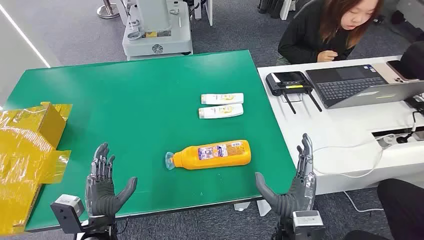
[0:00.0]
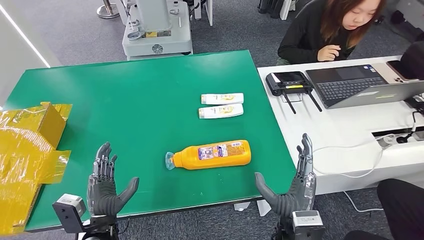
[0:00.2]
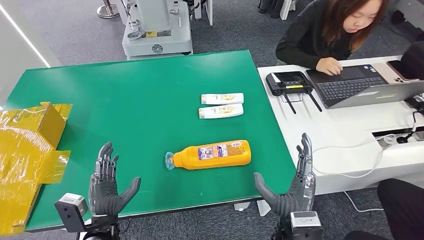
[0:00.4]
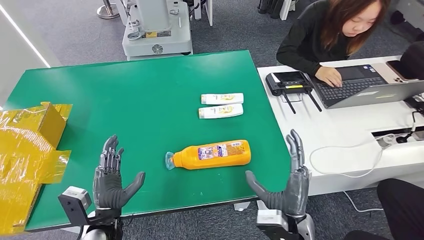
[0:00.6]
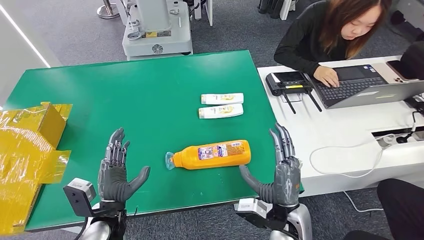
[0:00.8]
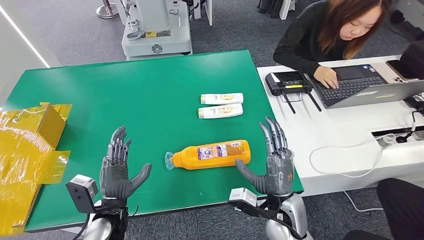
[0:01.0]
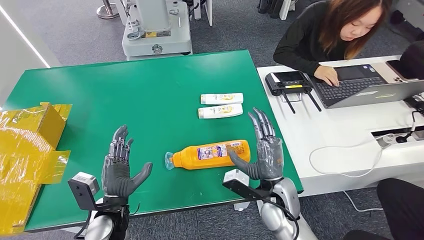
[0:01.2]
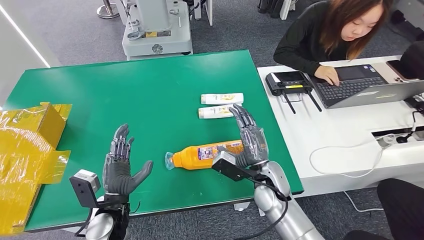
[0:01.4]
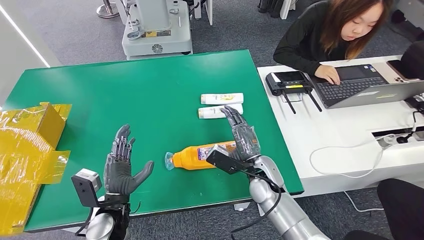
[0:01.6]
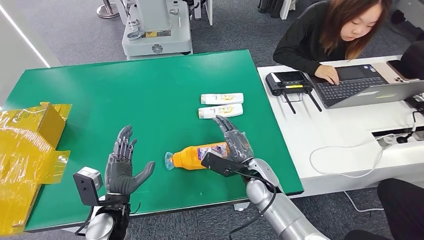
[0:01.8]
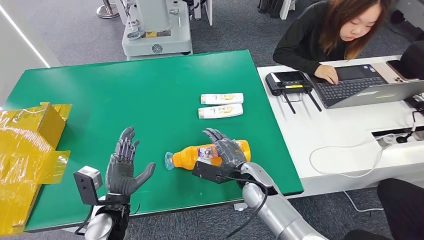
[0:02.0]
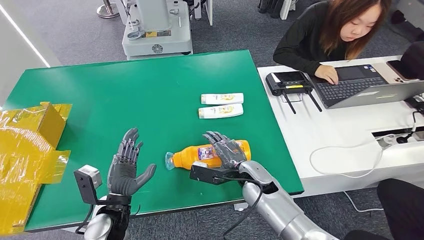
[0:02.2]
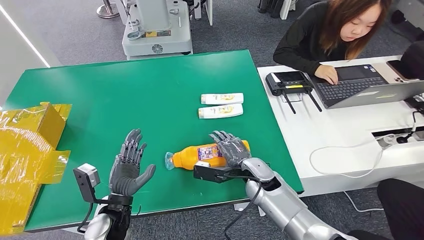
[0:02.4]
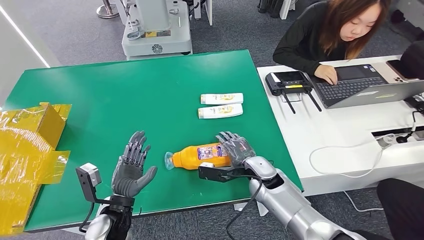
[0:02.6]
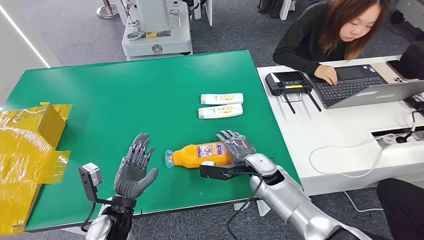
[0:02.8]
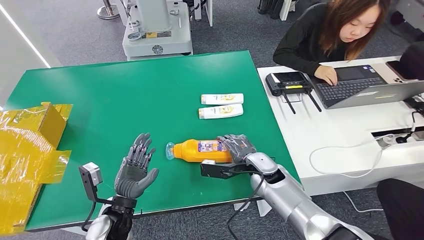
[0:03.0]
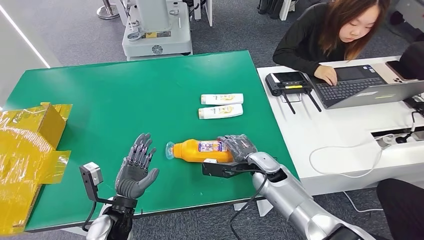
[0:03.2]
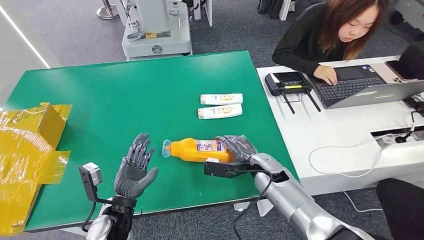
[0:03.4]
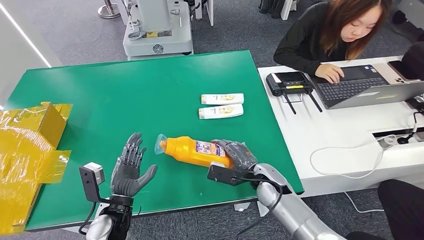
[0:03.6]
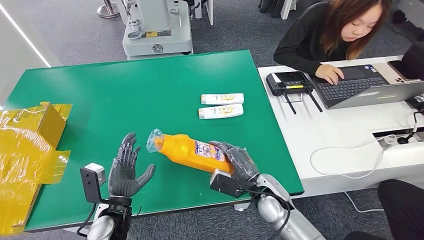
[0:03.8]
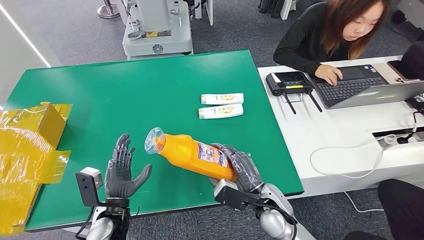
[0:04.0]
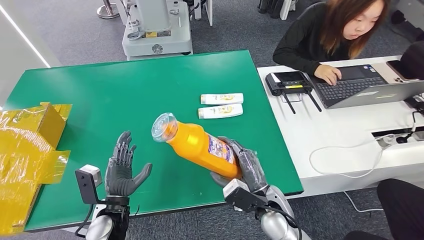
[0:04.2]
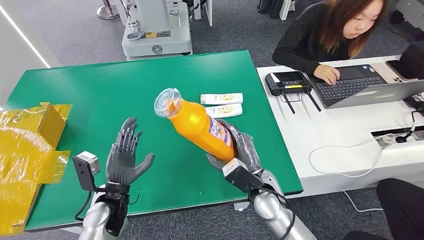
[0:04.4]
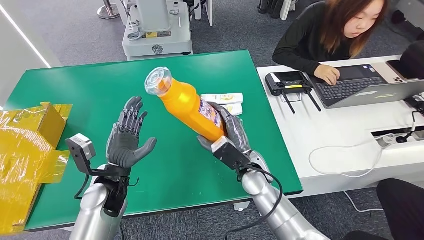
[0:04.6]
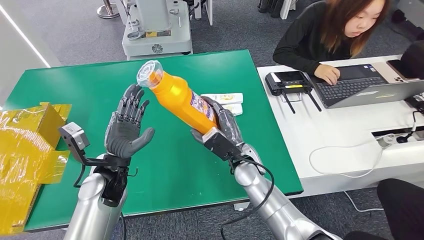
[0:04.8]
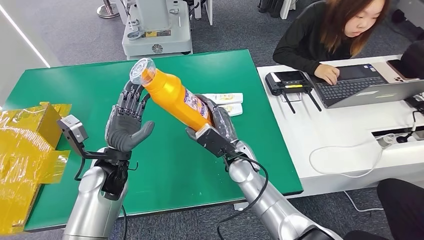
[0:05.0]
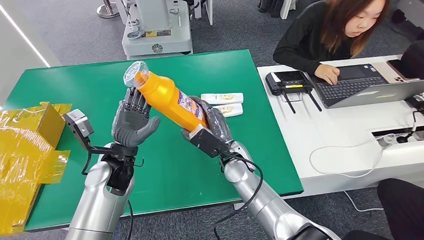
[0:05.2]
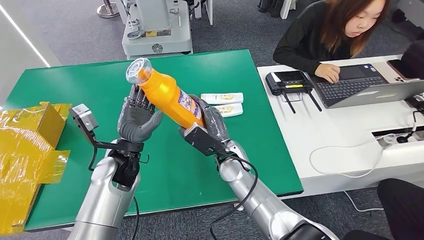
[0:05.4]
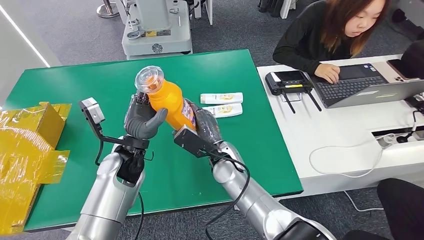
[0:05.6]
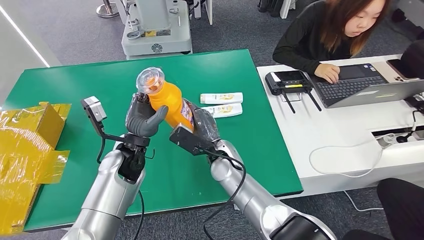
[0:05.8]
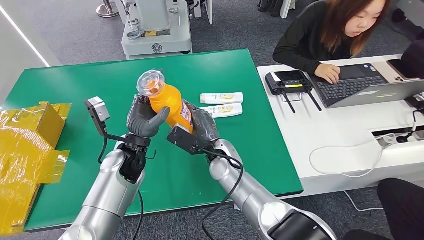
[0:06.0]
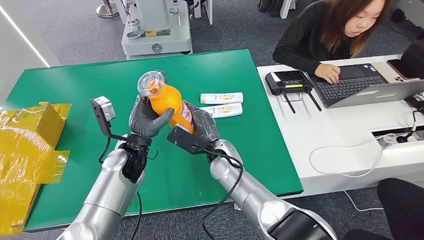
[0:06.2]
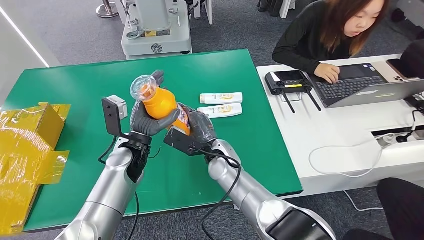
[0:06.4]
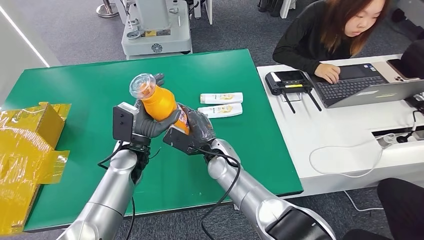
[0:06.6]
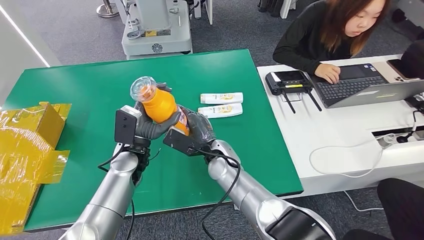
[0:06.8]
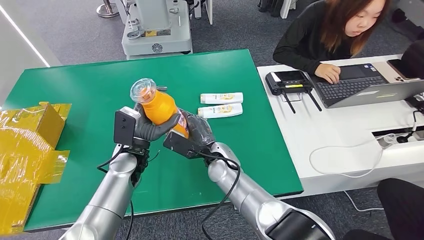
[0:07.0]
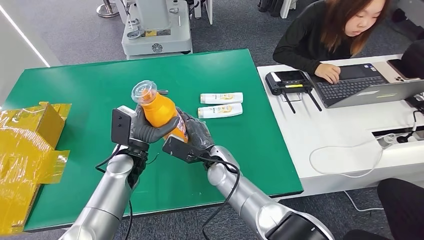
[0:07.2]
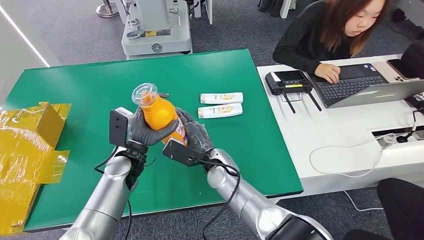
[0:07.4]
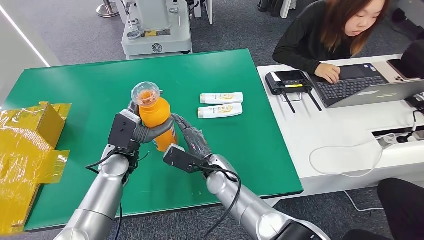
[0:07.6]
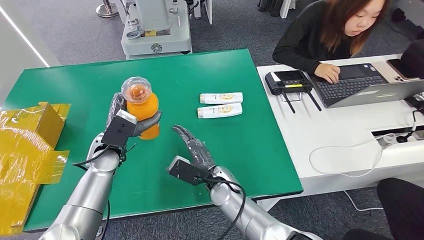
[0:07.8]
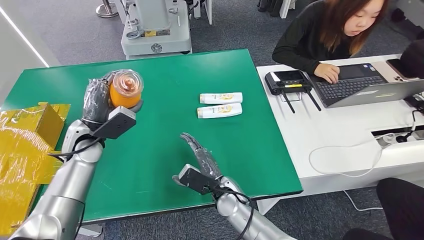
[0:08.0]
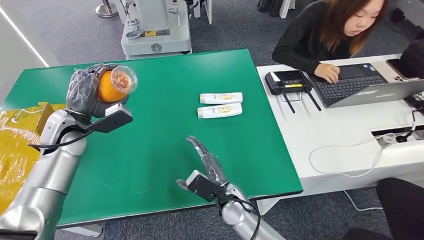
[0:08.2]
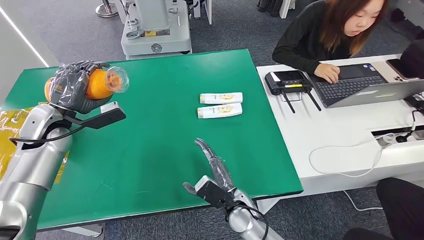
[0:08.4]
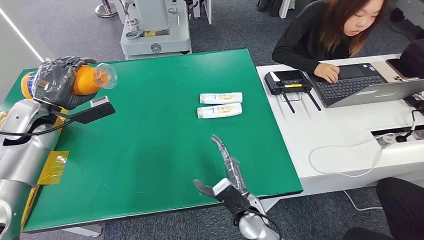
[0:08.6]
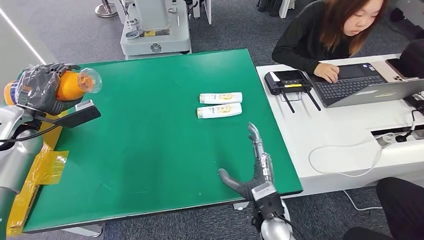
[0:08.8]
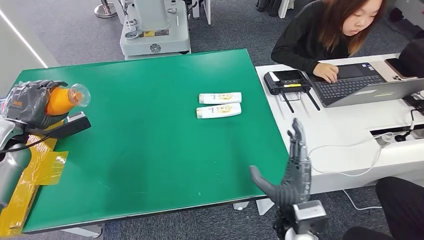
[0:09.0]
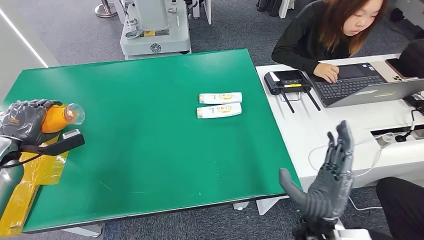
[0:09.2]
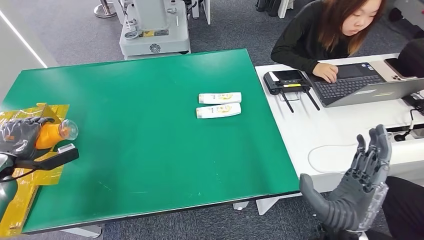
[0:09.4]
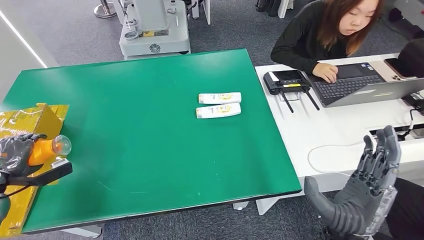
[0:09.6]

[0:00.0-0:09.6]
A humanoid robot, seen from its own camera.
Step, 0:00.0 to 0:04.0: Pick up the bottle from the table.
0:04.8 to 0:06.4: The right hand heads to the left, covering roughly 5 cm; the left hand travels forward by approximately 5 cm.
0:06.4 to 0:08.0: The right hand moves backward and downward, some 10 cm, while the left hand heads to the left, covering some 10 cm.

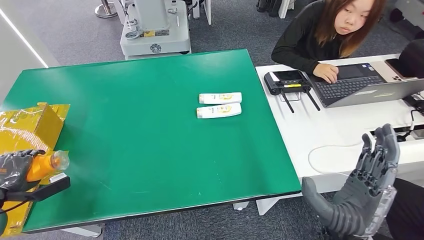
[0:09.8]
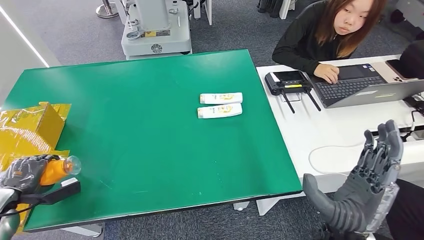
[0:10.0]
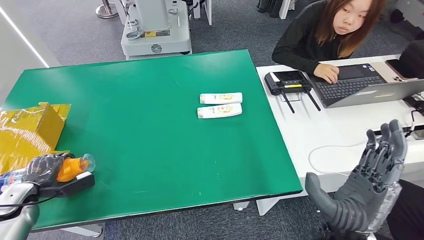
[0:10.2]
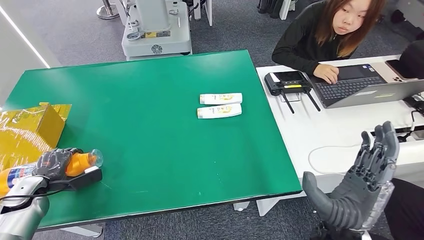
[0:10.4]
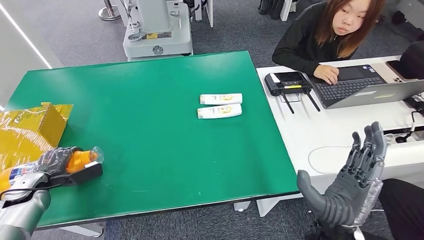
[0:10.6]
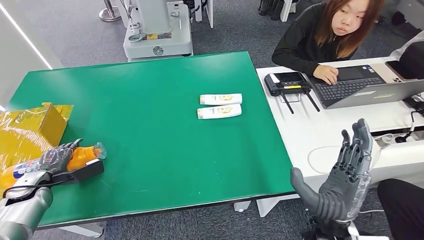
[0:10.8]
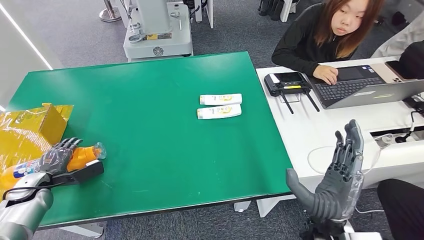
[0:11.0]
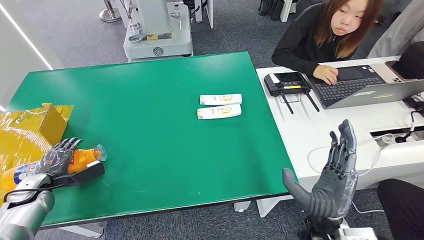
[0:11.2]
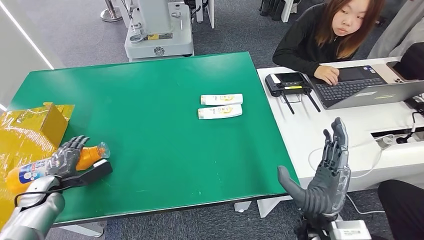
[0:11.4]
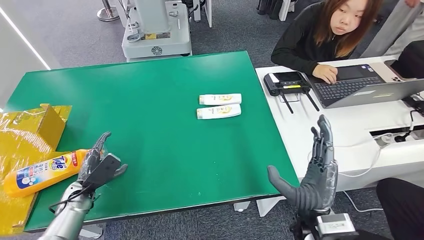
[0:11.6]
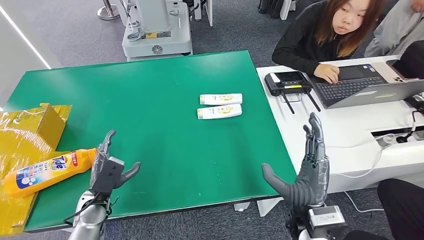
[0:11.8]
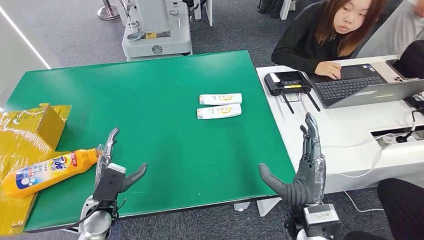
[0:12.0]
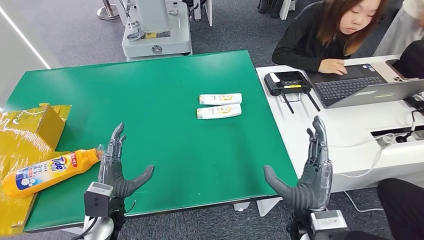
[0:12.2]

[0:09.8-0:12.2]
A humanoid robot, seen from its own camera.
Step, 0:09.8 to 0:12.2: Turn the bottle to the front side.
